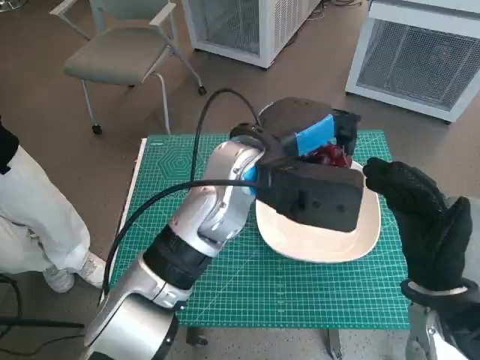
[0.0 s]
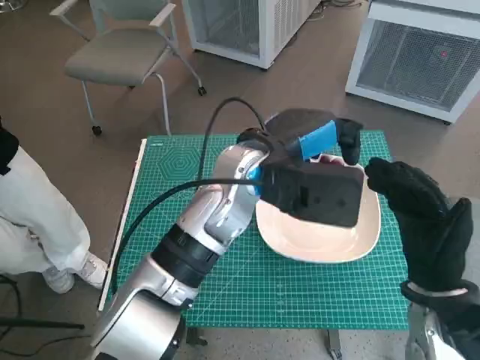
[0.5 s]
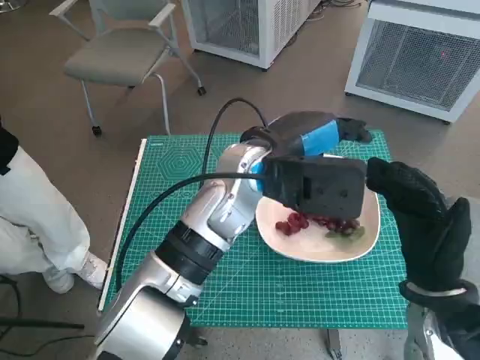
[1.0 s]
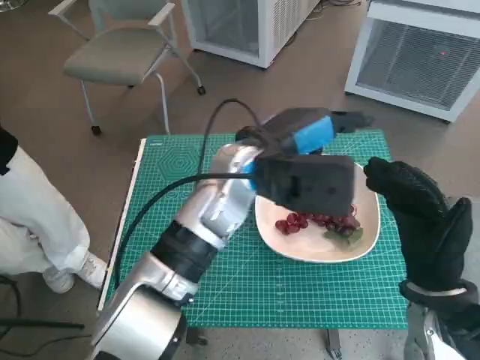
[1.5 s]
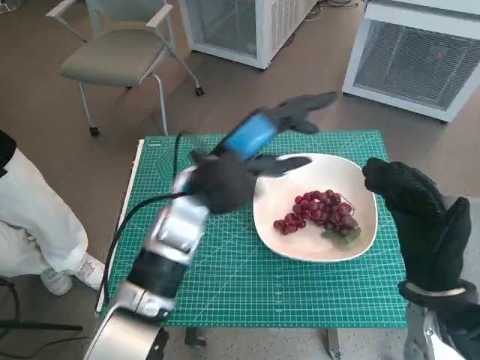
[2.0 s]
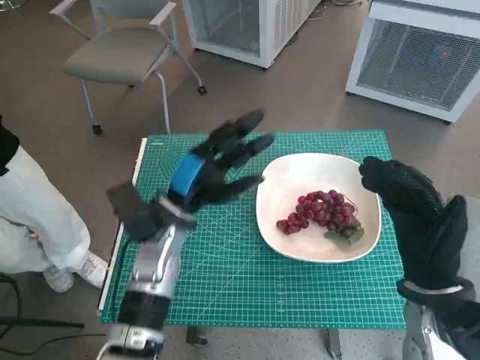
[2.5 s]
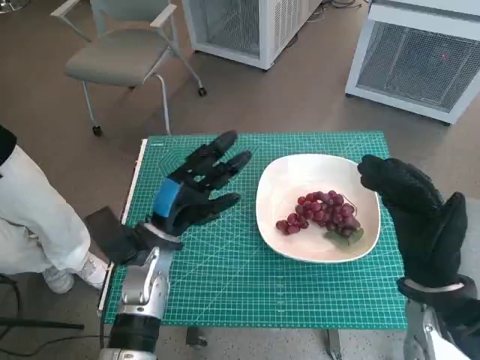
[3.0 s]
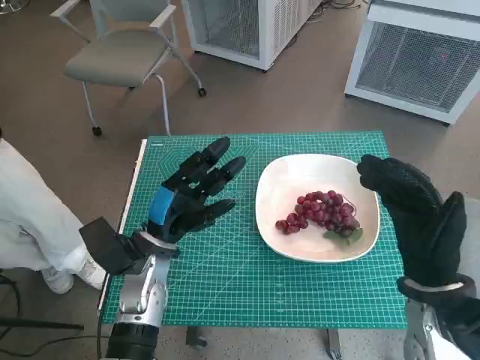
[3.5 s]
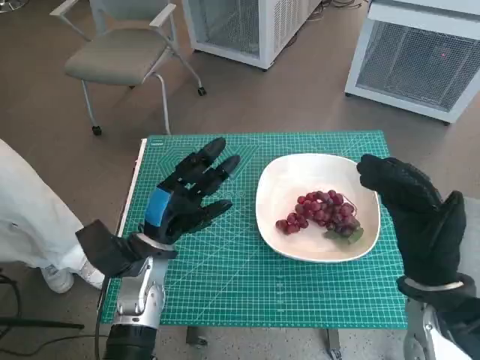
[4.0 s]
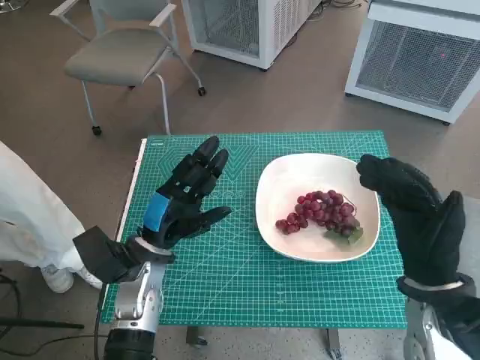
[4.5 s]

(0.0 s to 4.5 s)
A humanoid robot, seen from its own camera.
Task of the whole recording: Pick up the grapes and put them on the plate.
0.0 s - 2.0 s: The left hand travels to the left by approximately 5 cm.
2.0 s - 4.5 s: The left hand travels downward, to the left and backward by some 15 cm.
